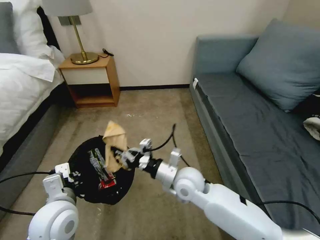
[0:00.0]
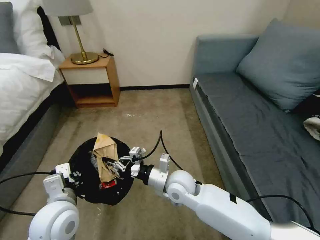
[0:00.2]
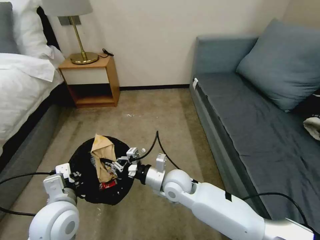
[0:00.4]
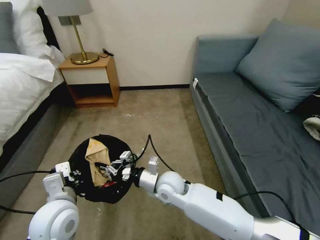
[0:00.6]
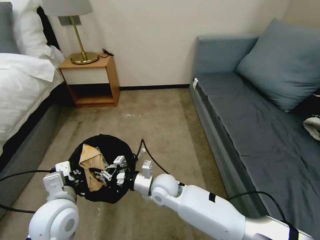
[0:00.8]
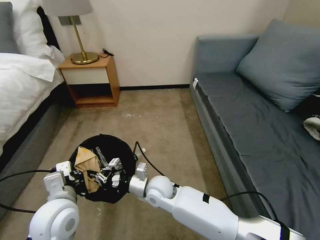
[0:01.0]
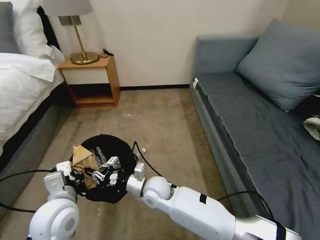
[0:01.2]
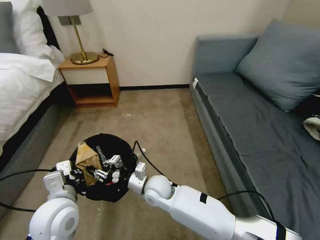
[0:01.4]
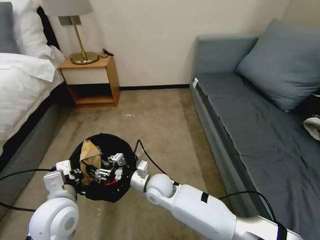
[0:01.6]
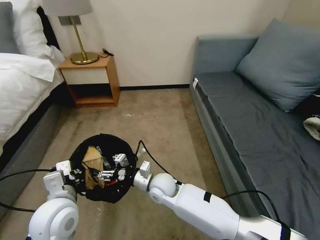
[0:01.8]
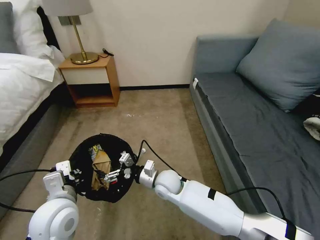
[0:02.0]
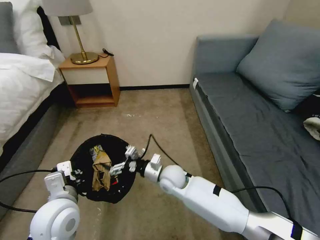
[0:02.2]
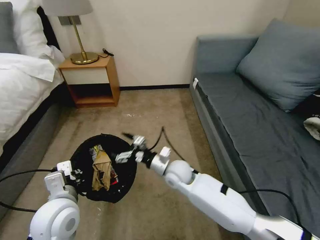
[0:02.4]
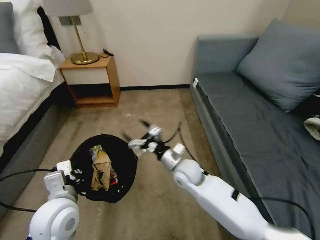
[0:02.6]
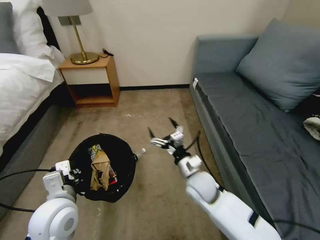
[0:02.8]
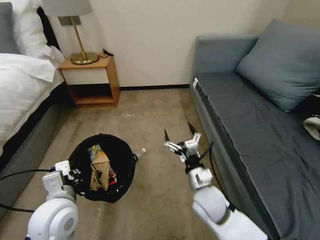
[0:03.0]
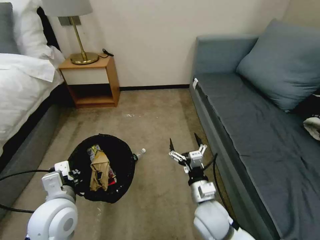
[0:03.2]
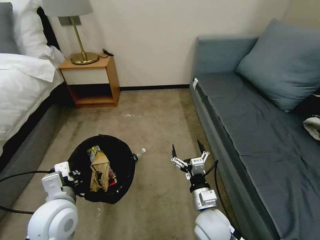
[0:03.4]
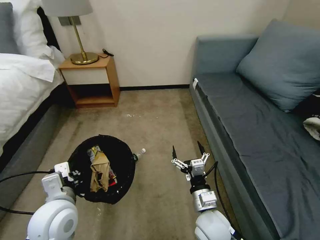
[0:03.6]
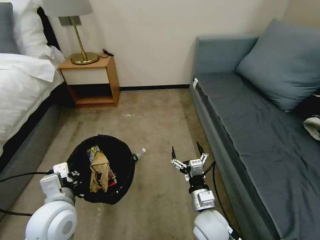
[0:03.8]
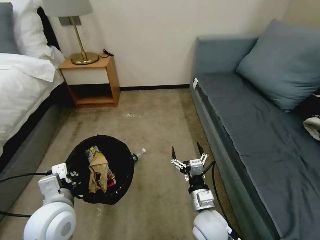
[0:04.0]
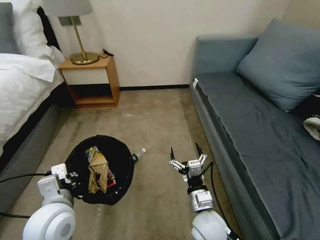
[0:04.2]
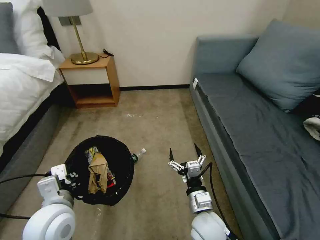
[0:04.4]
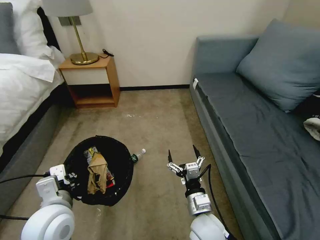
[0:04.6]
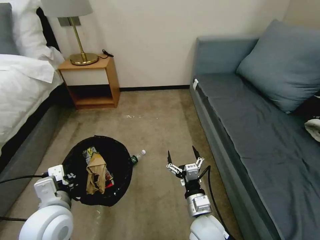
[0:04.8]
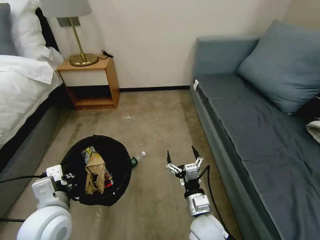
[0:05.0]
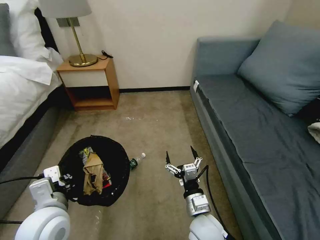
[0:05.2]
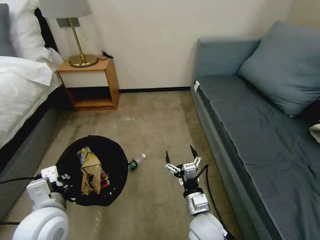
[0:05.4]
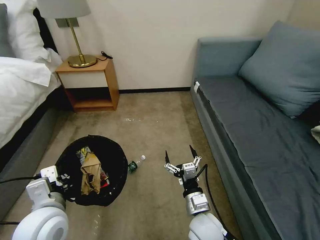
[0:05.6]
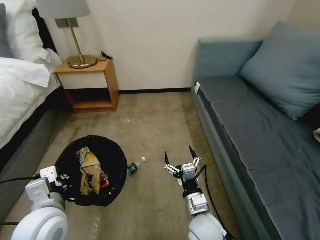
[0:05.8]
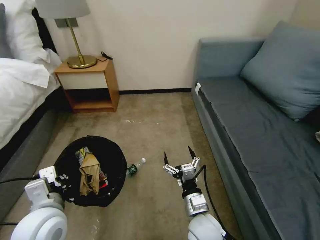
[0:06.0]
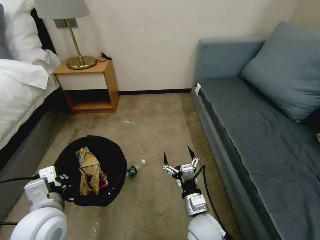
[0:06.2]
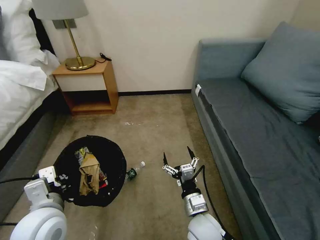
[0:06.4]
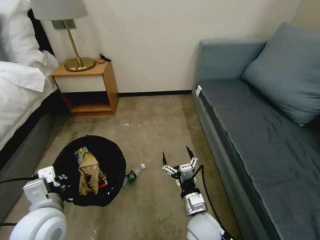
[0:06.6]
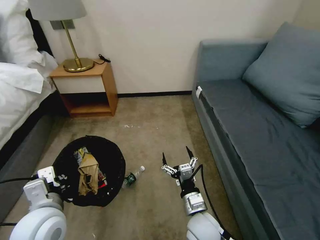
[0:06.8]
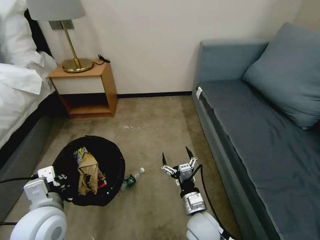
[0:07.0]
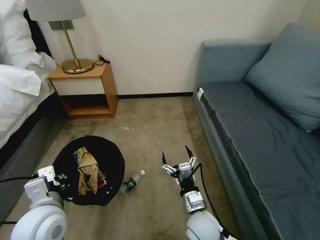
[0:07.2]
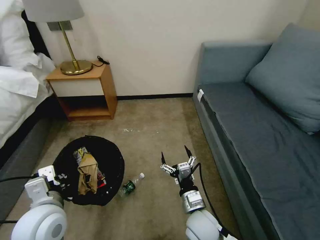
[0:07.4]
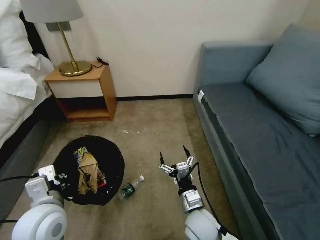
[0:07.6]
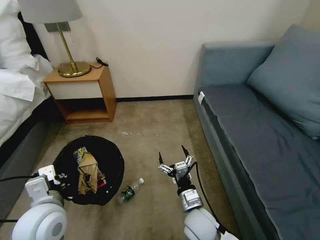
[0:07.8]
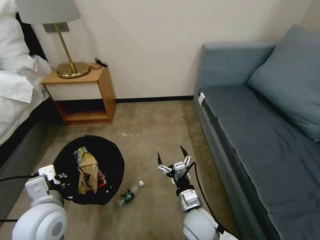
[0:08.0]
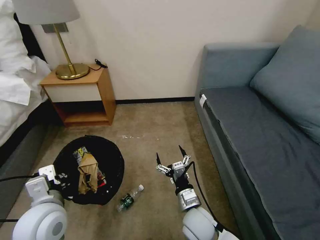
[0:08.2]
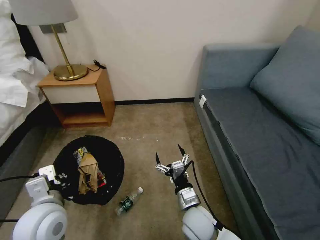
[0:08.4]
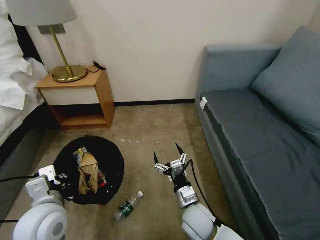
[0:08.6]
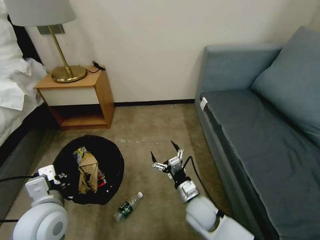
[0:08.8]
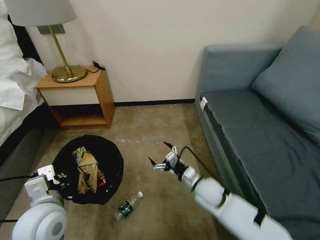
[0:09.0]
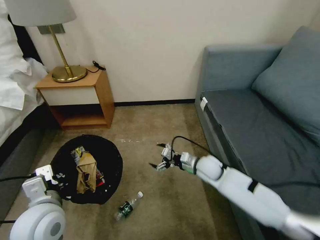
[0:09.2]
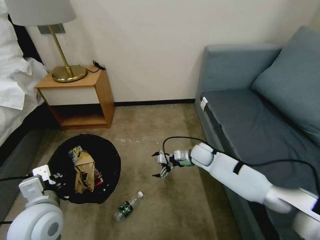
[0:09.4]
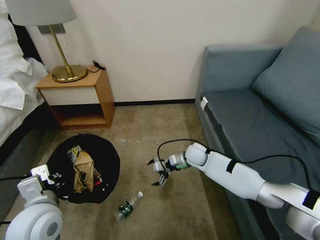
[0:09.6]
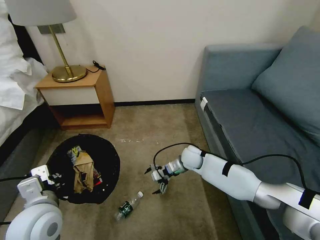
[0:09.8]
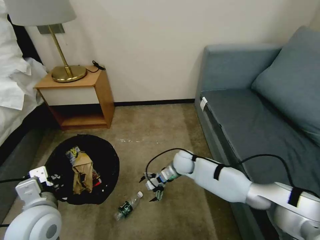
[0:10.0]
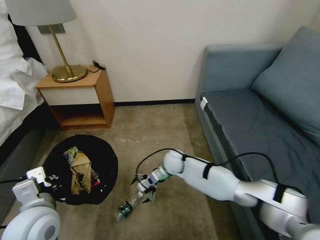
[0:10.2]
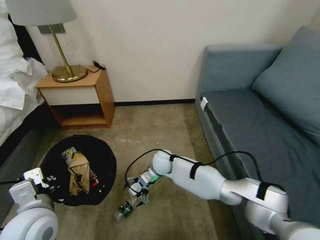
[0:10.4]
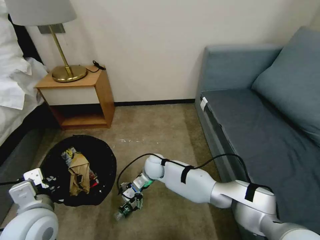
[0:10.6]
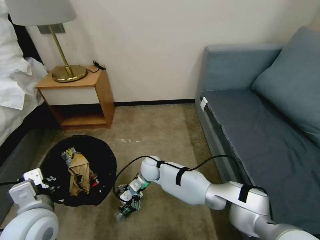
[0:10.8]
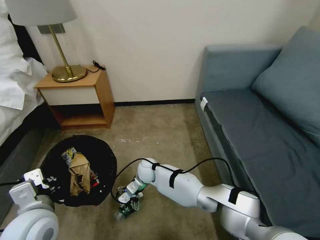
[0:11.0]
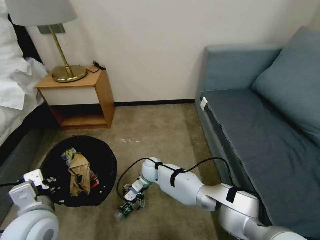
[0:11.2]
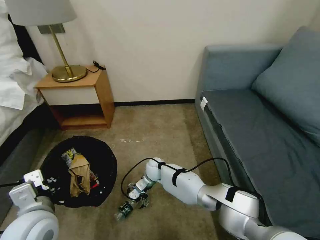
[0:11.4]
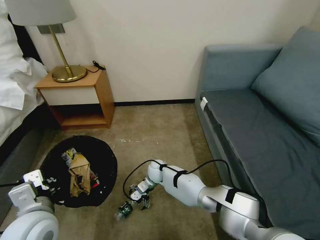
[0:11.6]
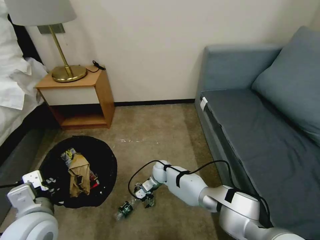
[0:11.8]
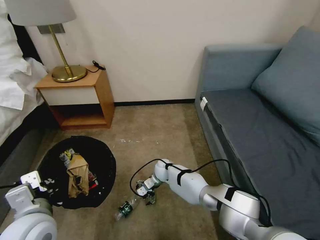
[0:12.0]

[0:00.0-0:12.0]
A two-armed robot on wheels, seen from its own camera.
Task of the whole recording: Pick up the trash bin, then pick up the garbage on the floor and place it into the trash bin.
0:00.0 to 0:01.6: The right gripper travels to the left and downward by roughly 10 cm, and opens.
0:01.6 to 0:03.0: The right gripper shifts about 15 cm to the right, and opens.
0:03.0 to 0:04.4: The right gripper shifts about 10 cm backward.
0:04.4 to 0:06.0: There are only small adjustments of the grippers.
0:07.6 to 0:09.0: The right gripper shifts roughly 10 cm forward.
0:09.0 to 0:10.4: The right gripper shifts approximately 20 cm to the left and forward.
0:10.4 to 0:12.0: The right gripper heads downward, covering roughly 10 cm.

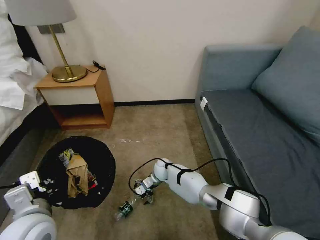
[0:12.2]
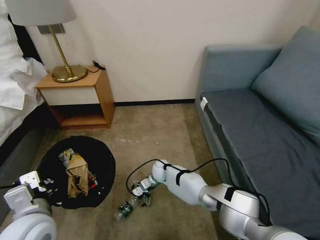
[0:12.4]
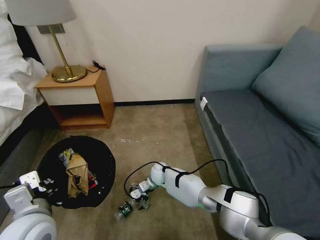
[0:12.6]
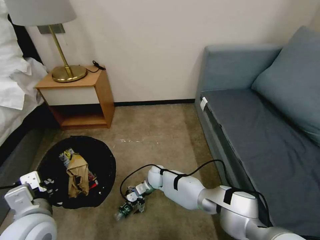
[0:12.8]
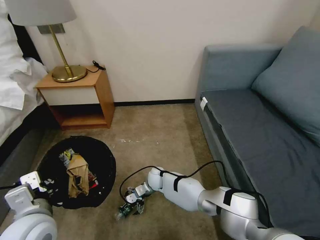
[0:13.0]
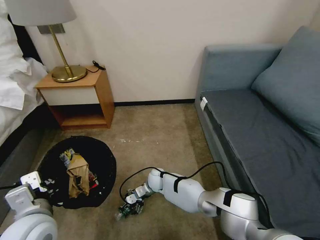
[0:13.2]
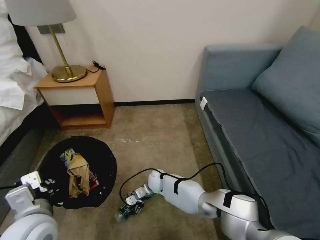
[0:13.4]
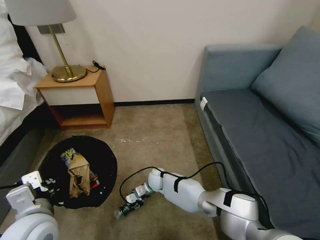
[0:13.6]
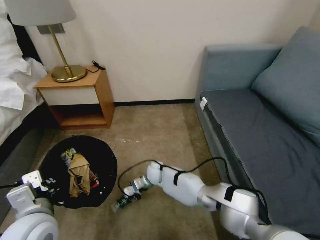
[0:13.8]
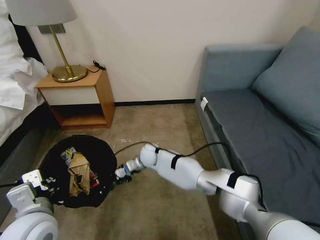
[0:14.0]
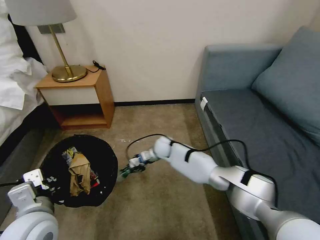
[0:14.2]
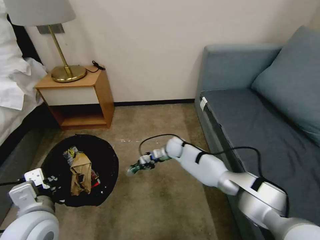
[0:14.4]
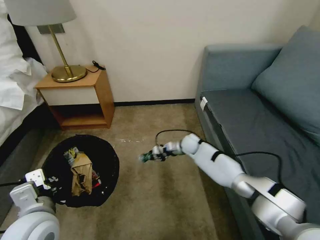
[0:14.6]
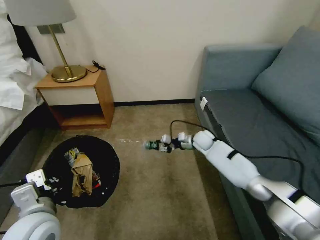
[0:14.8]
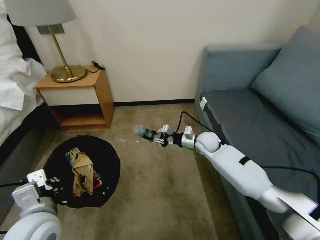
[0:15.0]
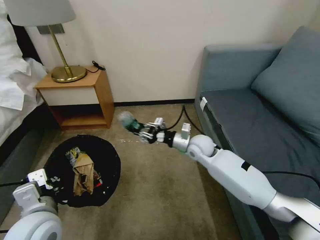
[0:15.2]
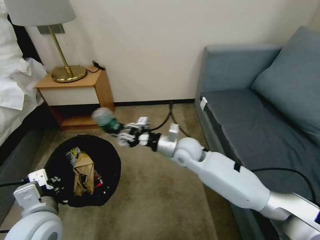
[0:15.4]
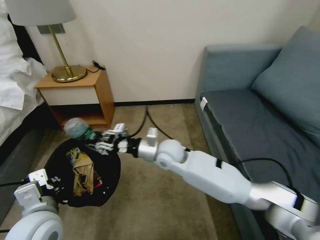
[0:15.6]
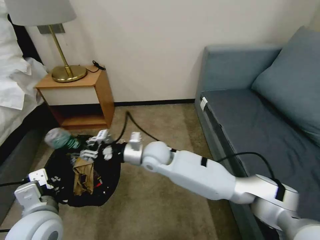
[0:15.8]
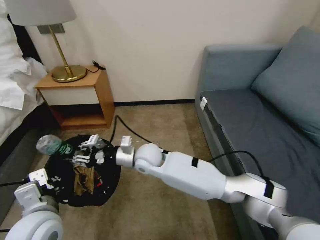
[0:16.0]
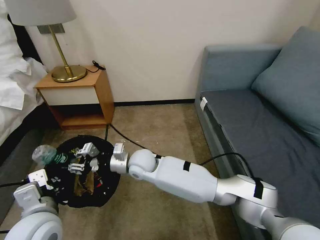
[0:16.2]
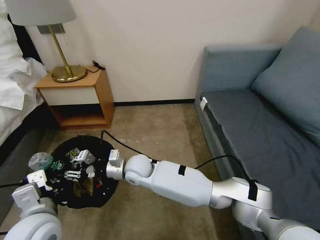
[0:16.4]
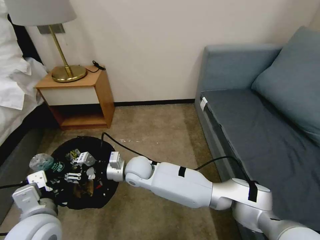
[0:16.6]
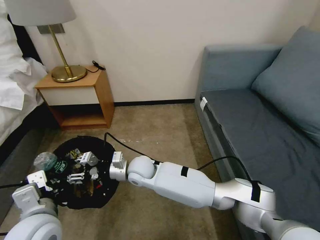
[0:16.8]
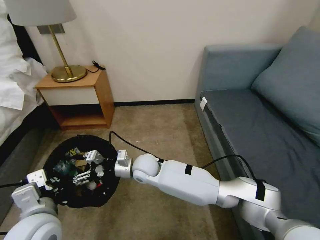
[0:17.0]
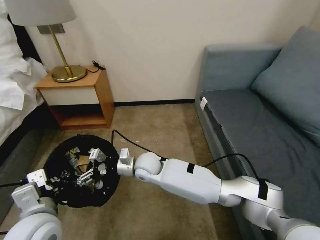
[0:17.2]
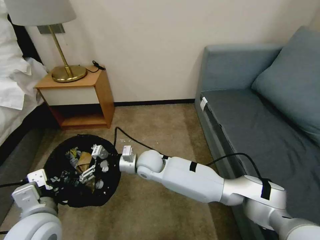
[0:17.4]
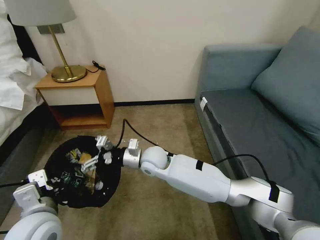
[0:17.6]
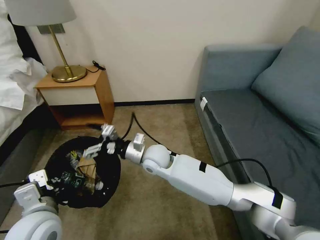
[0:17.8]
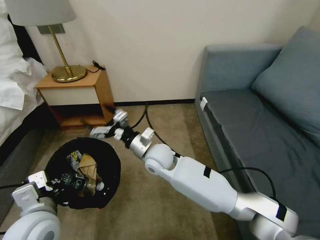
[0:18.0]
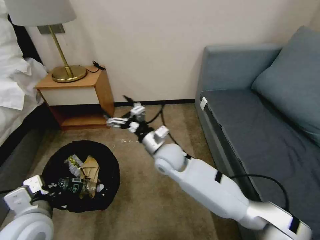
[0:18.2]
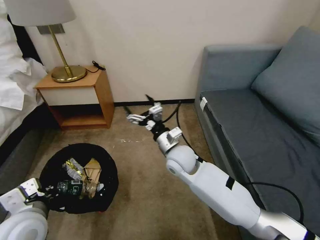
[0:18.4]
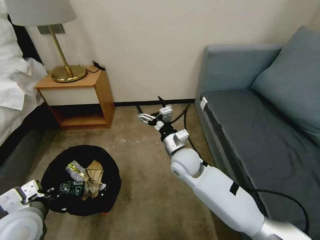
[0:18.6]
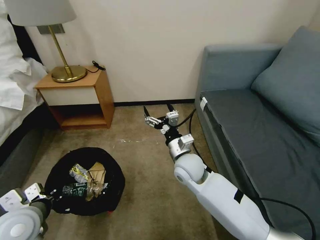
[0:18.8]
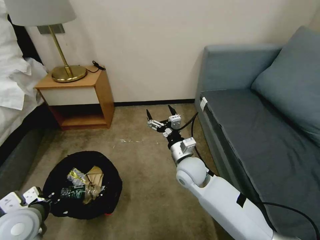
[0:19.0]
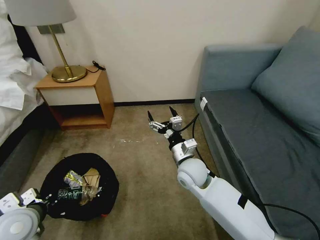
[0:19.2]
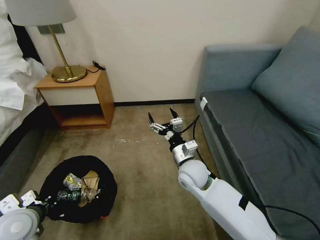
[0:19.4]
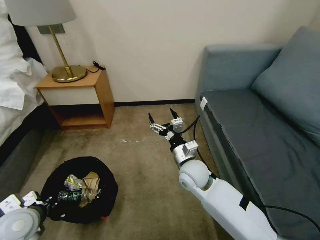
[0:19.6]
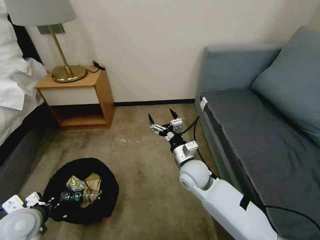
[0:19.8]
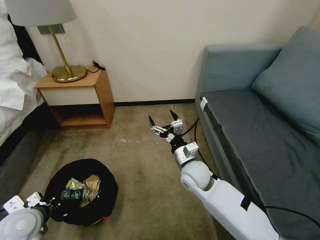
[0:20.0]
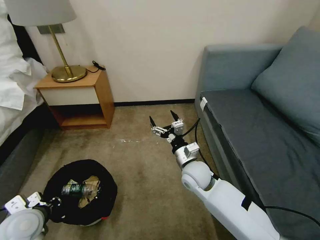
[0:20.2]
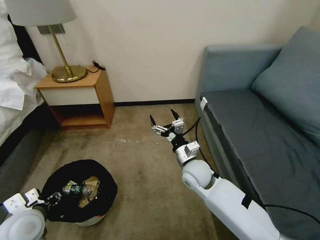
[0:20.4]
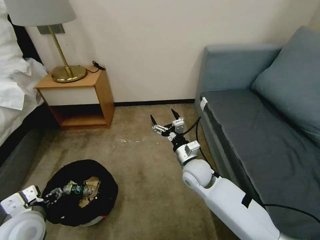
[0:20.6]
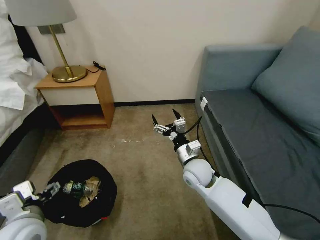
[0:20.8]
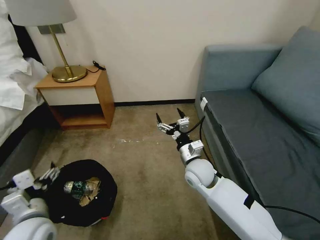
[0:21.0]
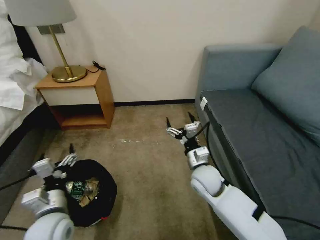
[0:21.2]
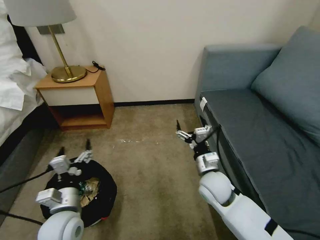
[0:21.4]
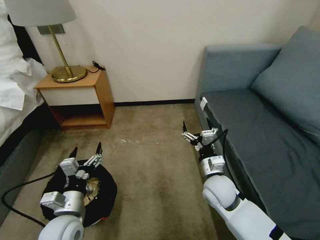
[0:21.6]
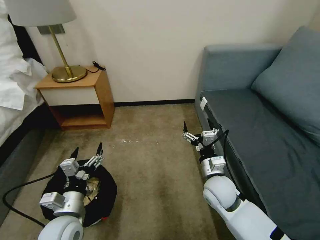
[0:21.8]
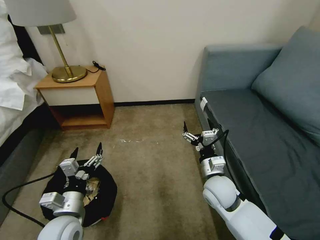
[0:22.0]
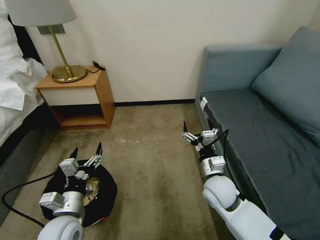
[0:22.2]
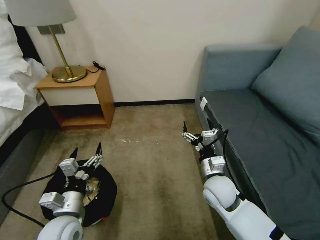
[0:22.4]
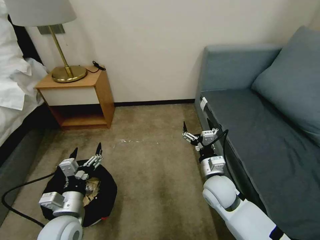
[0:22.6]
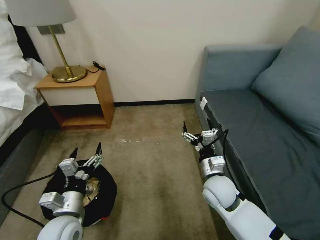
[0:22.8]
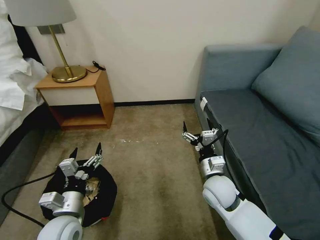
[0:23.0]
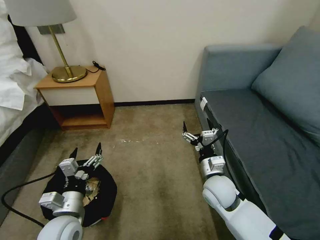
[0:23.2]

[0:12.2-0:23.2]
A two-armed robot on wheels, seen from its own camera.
Task of the whole recording: Pick up the trash bin, then pick up the garbage on the floor and place it into the trash bin.
0:12.2 to 0:13.8: The right gripper changes place by roughly 5 cm, and closes its fingers.
0:13.8 to 0:15.4: The right gripper is displaced upward and to the right by about 25 cm.
0:15.4 to 0:17.0: The right gripper moves to the left and downward, approximately 15 cm, and opens up.
0:17.0 to 0:18.4: The right gripper travels to the right and upward by roughly 15 cm.
0:18.4 to 0:20.0: The left gripper shifts approximately 10 cm downward and to the left, while the right gripper ends up roughly 10 cm from where it was.
0:20.0 to 0:21.6: The right gripper travels to the right by about 5 cm. The left gripper goes some 10 cm to the right, and opens.
0:21.6 to 0:23.2: The two grippers keep their place.
